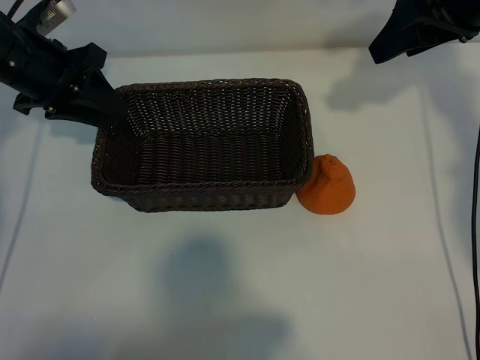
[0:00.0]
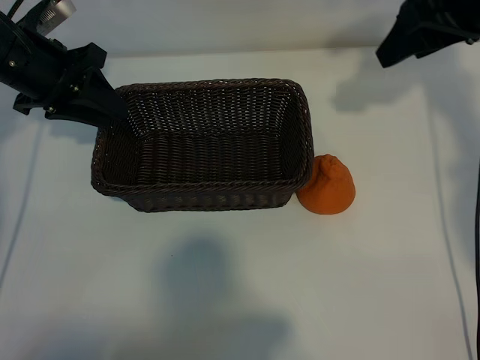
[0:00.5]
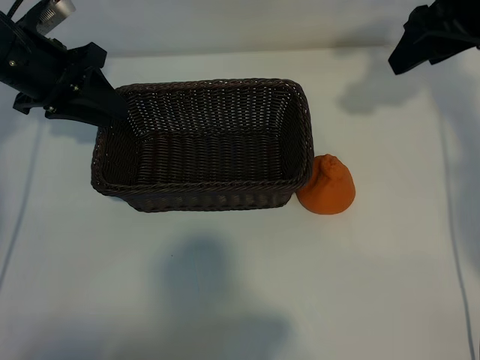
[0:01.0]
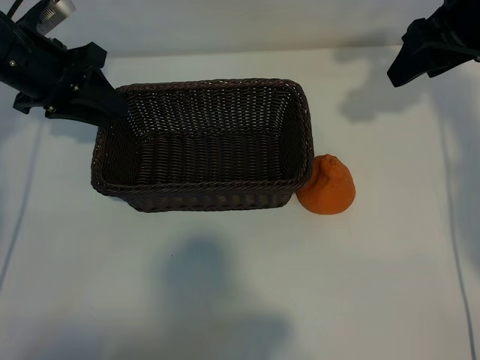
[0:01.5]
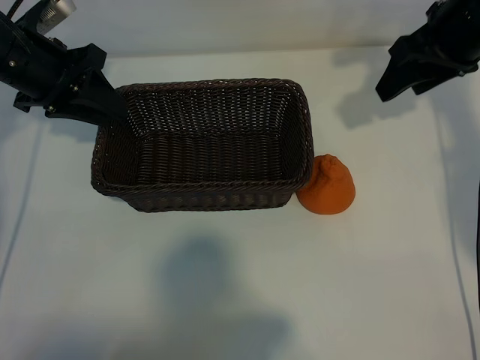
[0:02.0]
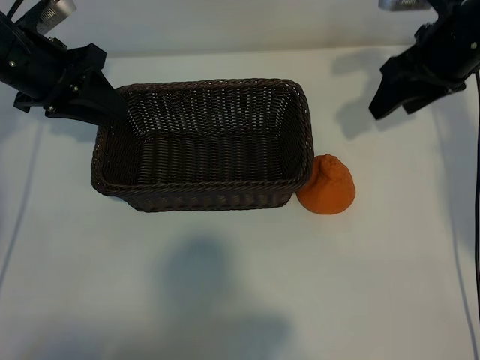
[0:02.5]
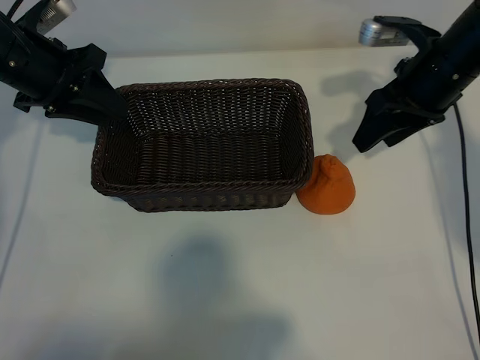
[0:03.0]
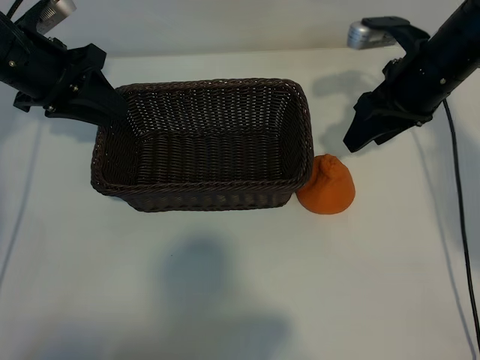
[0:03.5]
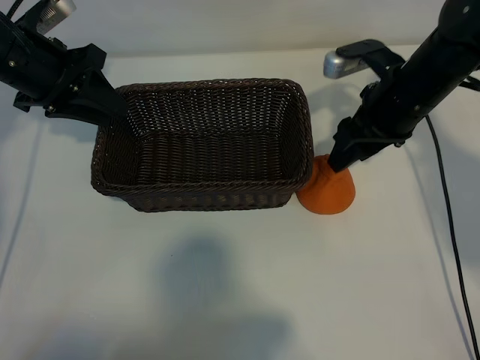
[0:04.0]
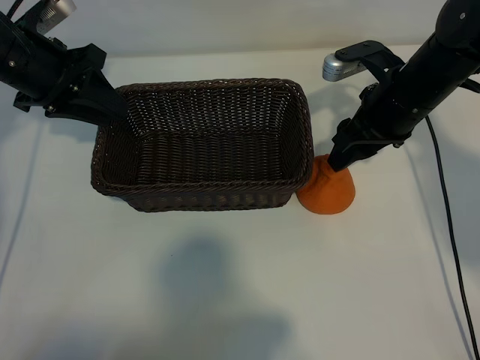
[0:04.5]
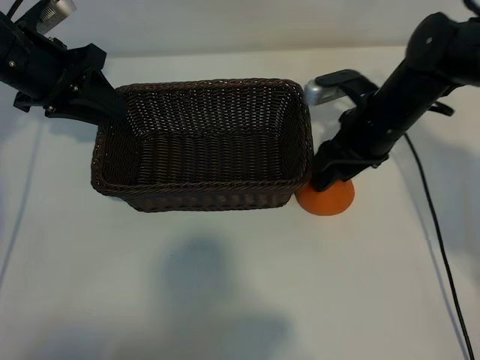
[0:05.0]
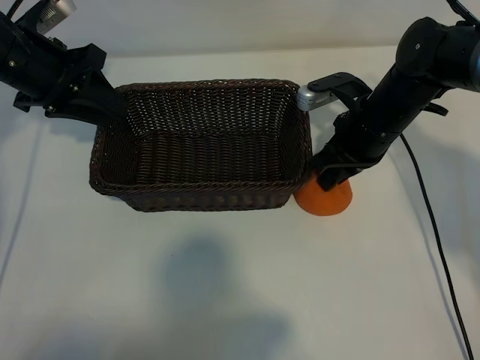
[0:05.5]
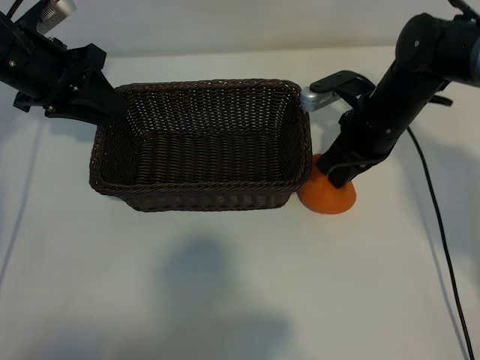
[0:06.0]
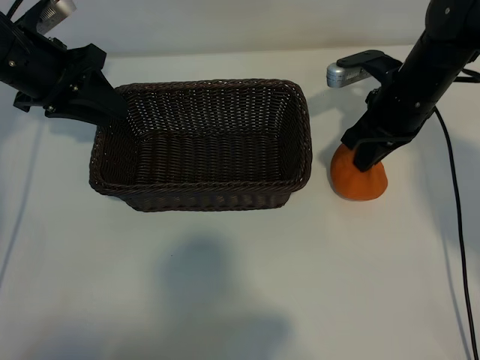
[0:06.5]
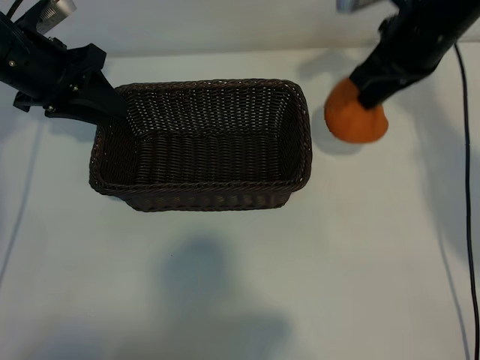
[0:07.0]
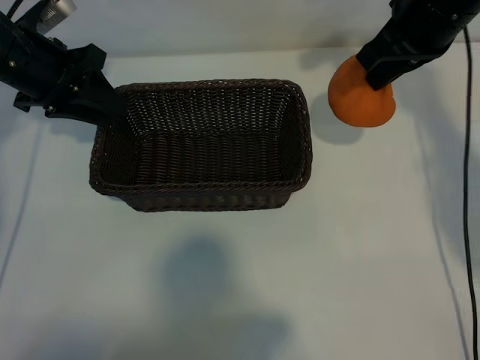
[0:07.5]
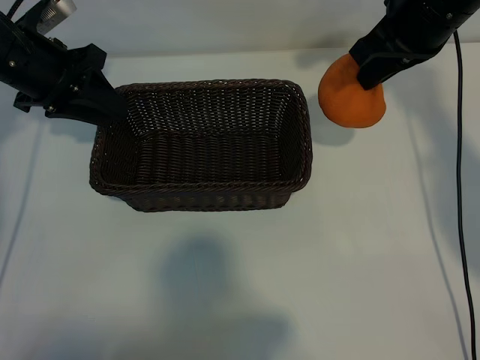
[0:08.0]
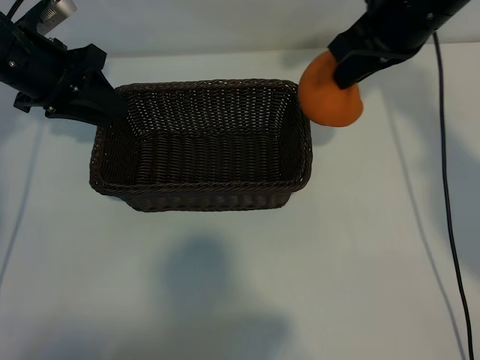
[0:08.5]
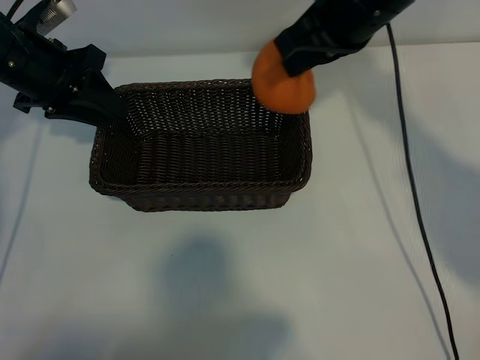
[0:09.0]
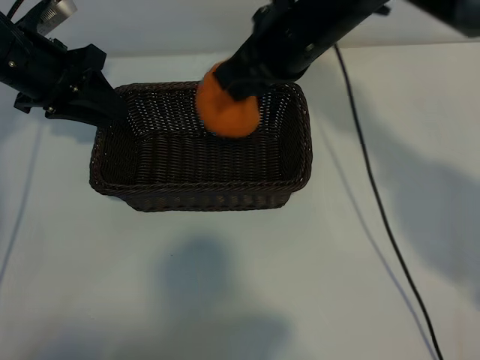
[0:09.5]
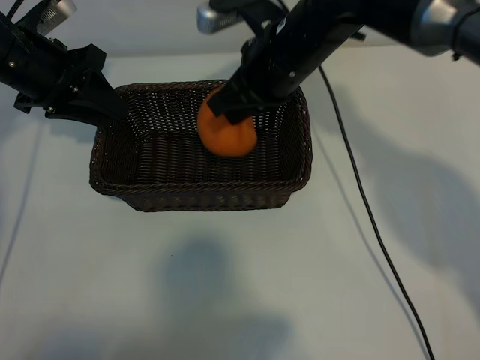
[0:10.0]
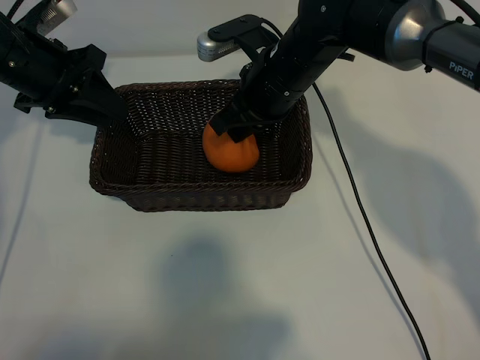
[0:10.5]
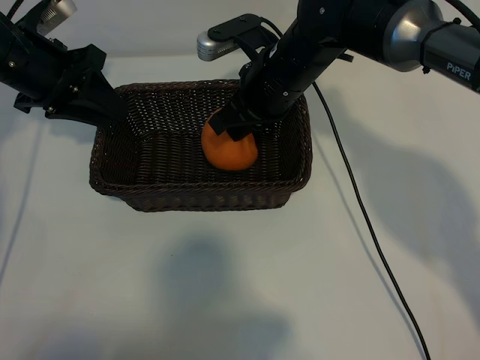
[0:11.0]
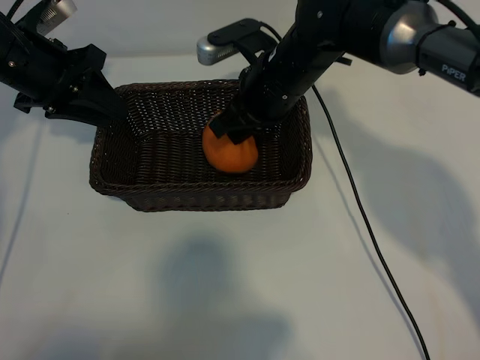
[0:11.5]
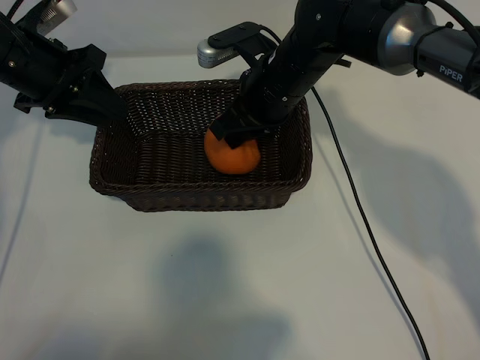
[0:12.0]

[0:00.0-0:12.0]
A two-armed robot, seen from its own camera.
Task of the whole recording: pick up the orange and put it into the basket.
Step, 0:00.0 to 0:05.5: Grasp the orange with right gripper.

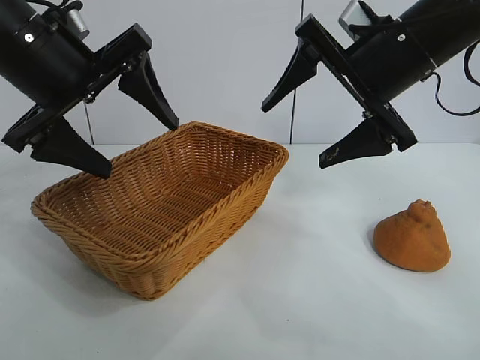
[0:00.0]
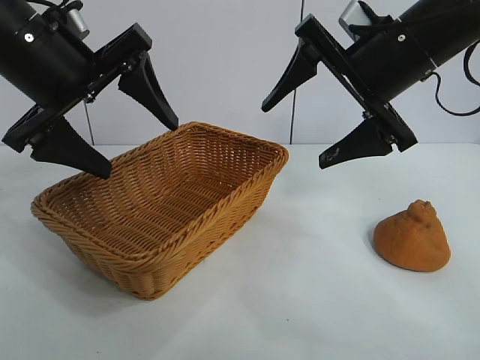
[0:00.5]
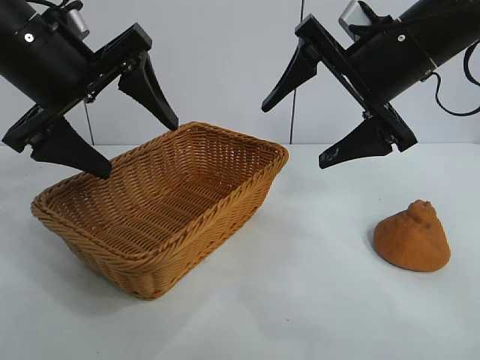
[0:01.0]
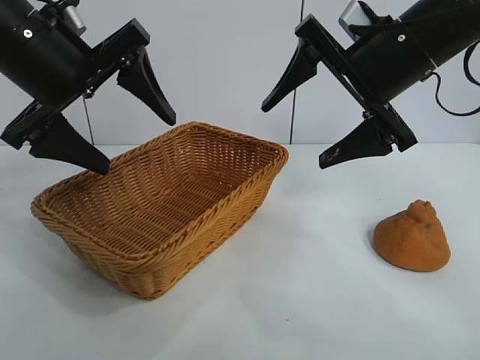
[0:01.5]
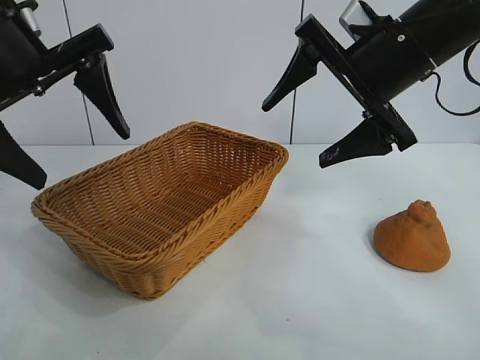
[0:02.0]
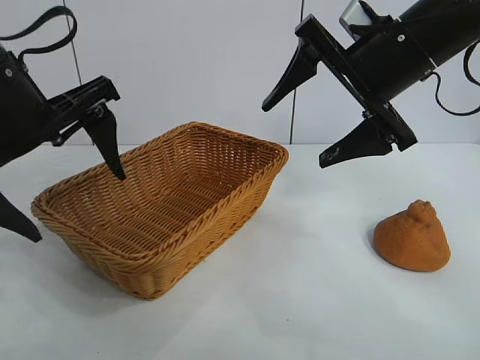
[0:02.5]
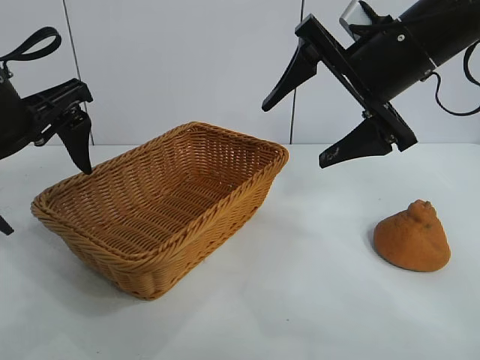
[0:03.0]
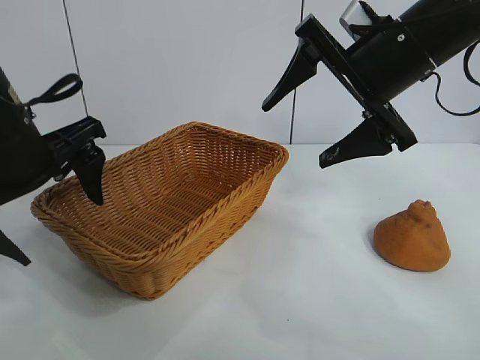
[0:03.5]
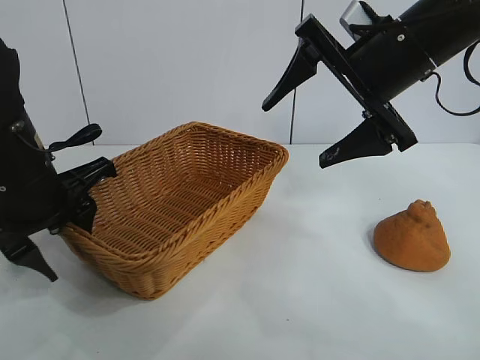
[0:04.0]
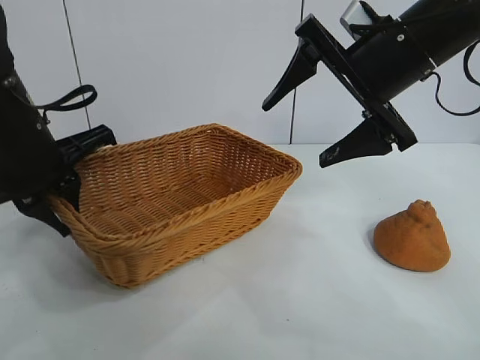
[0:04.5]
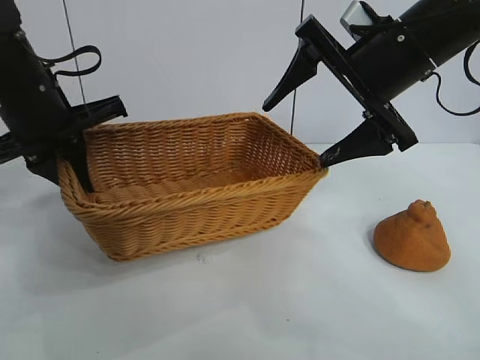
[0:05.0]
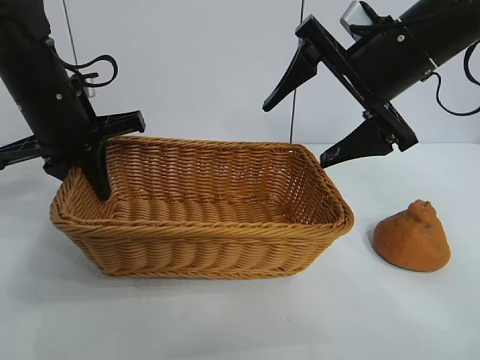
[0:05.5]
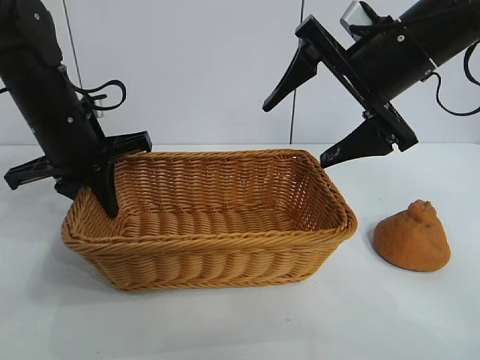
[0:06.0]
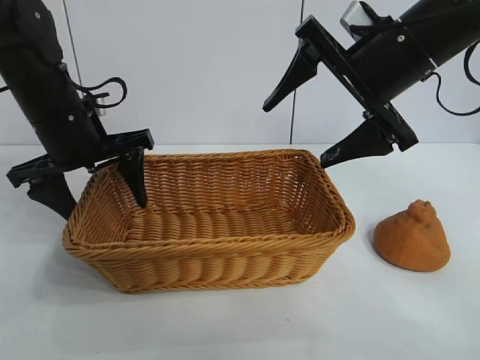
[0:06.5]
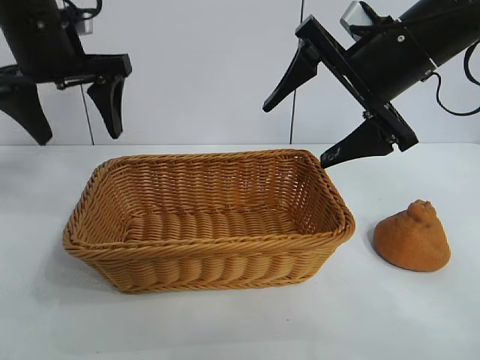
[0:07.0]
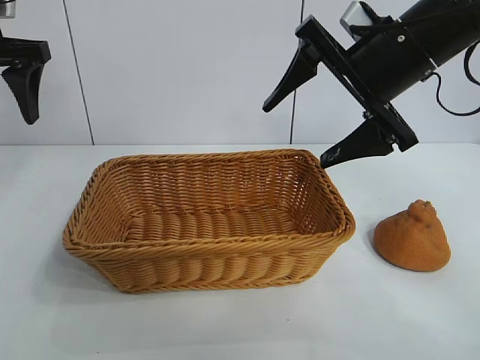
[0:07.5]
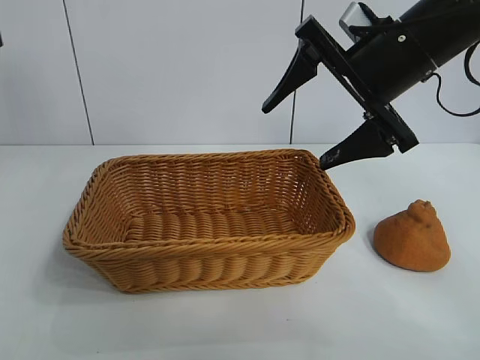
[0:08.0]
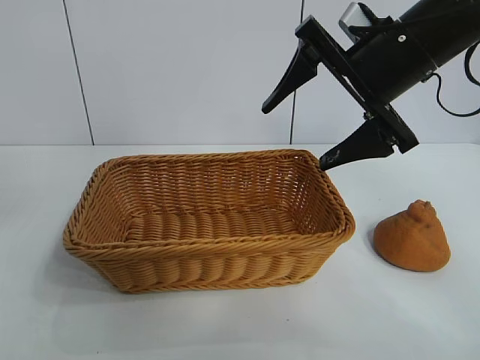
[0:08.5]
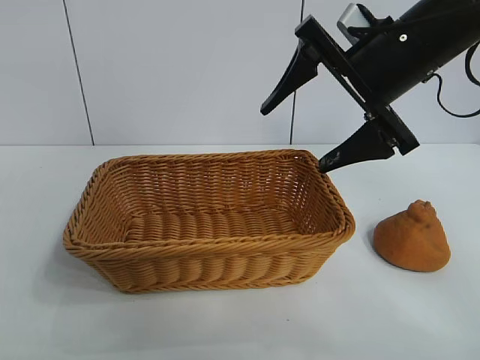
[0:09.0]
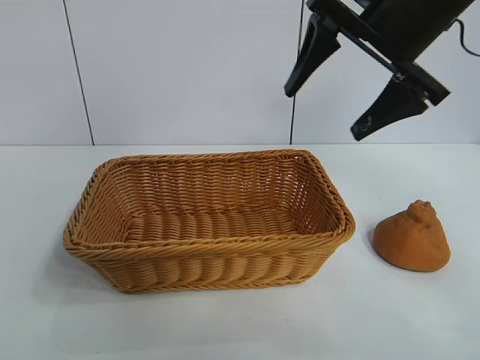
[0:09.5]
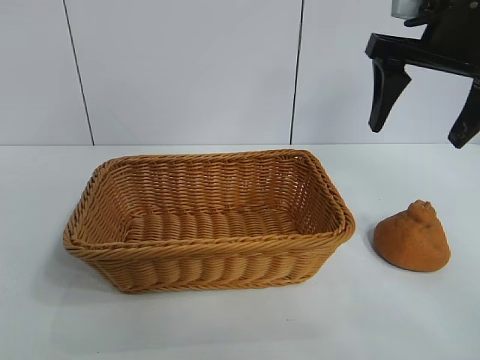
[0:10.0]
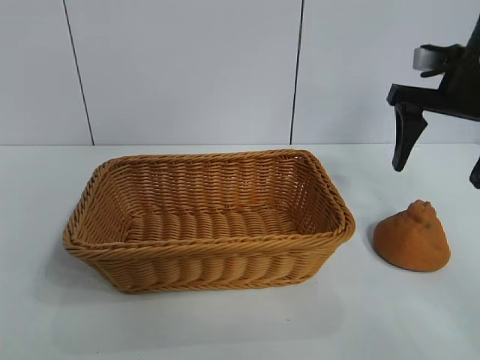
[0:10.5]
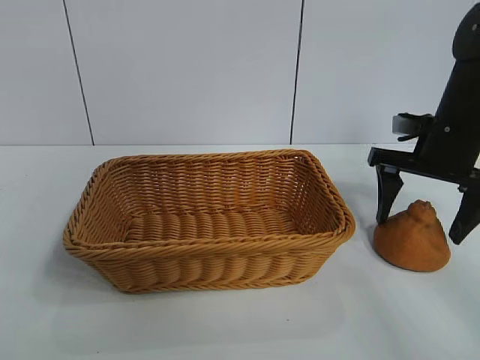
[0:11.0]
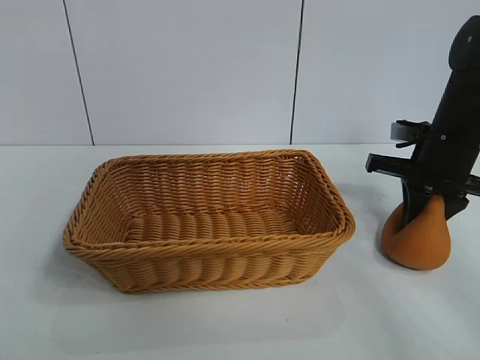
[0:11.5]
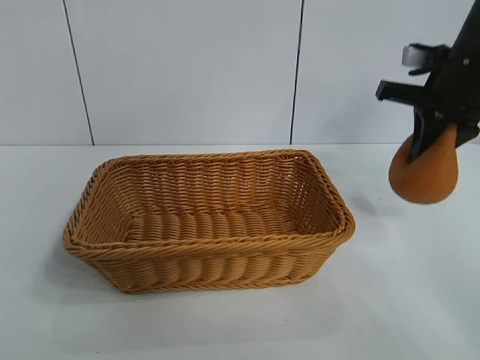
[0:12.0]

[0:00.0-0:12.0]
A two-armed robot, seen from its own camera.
Task of the whole recording: pick up the orange and put it into the basket.
Step, 0:01.0 to 0:04.0: Grasp the basket with left gripper.
Step, 0:04.5 to 0:07.0: Place the basket in the center of view with left gripper.
Step, 0:07.5 to 0:11.5: Grasp the orange with right gripper.

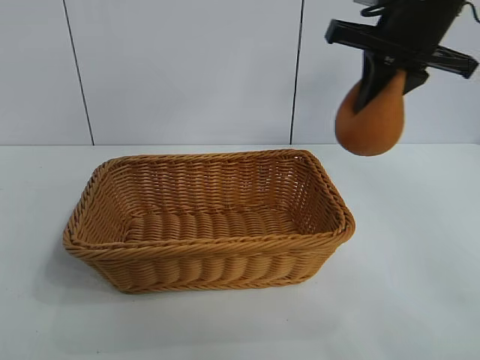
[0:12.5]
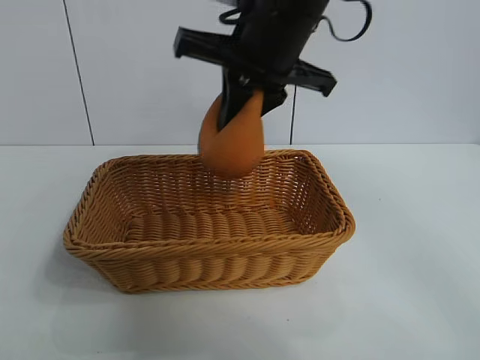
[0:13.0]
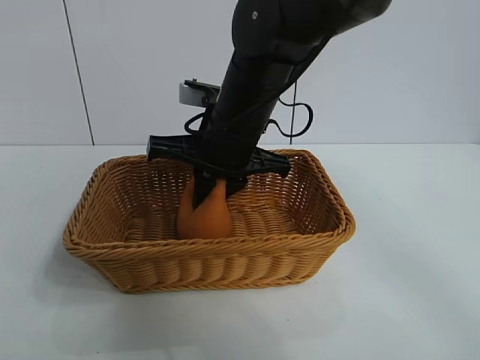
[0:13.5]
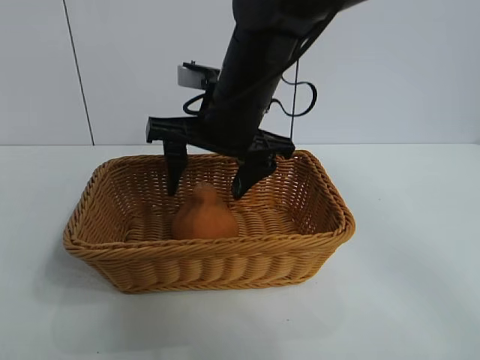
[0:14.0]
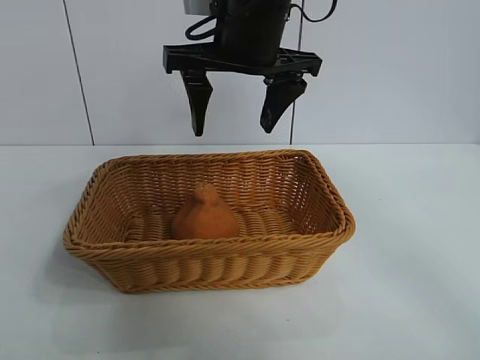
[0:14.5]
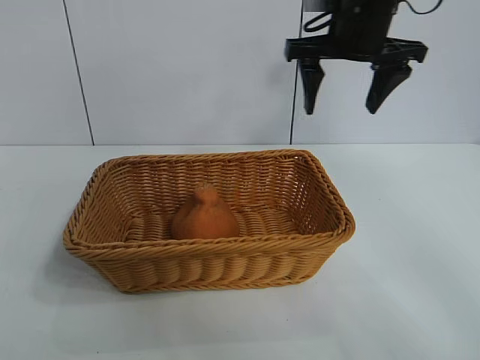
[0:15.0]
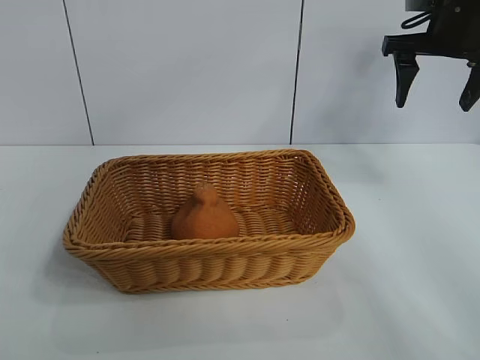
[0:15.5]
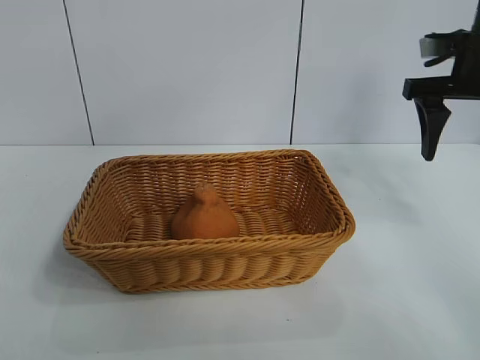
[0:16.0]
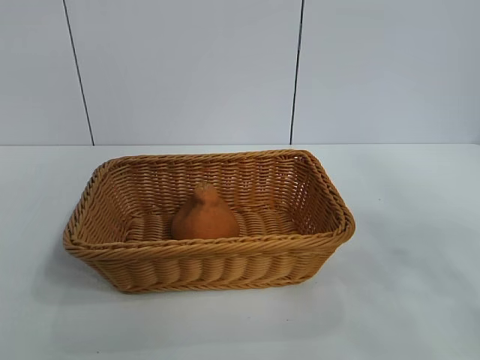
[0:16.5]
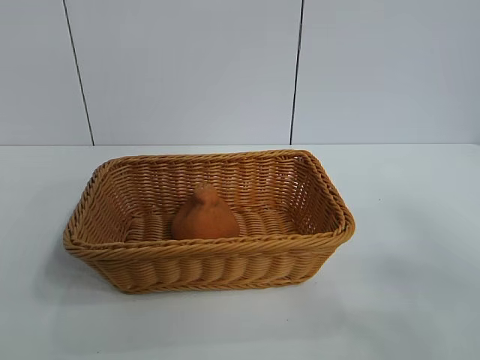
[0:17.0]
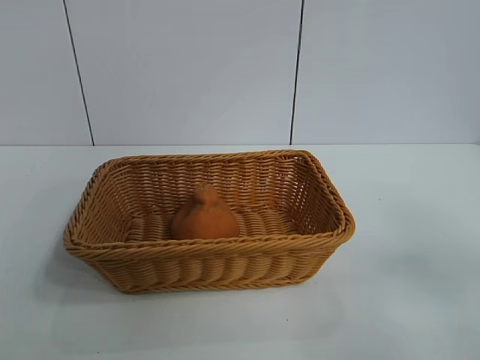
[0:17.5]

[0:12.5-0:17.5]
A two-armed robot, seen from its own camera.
Task of the whole recording: pick up the orange and put it into the basket.
Step, 0:12.5 to 0:14.0: Place the orange in the basket with right gripper.
